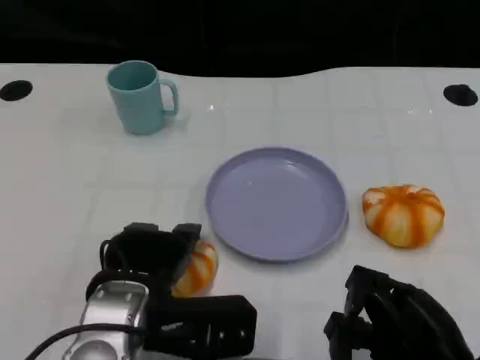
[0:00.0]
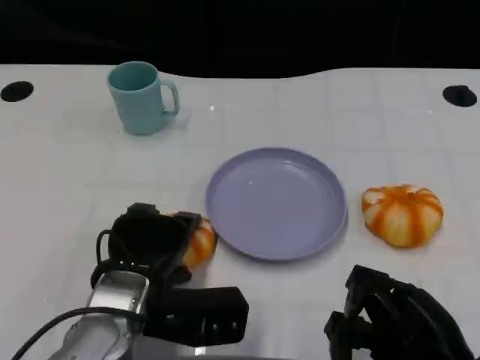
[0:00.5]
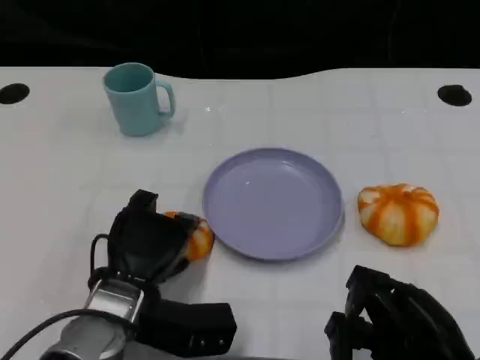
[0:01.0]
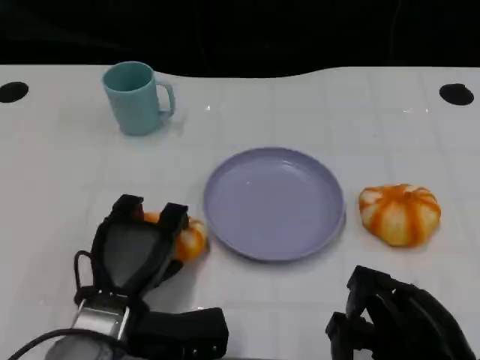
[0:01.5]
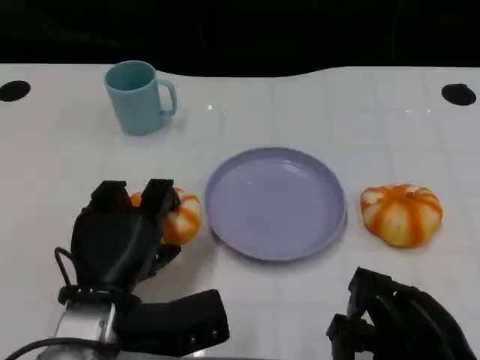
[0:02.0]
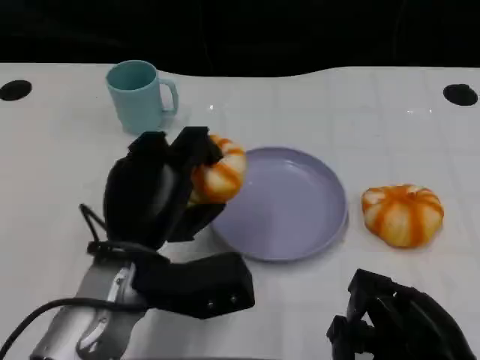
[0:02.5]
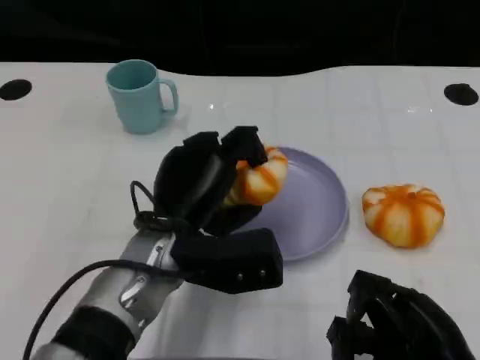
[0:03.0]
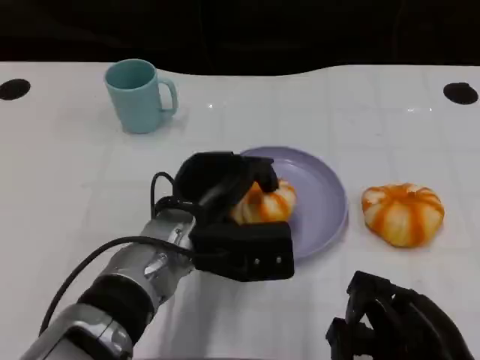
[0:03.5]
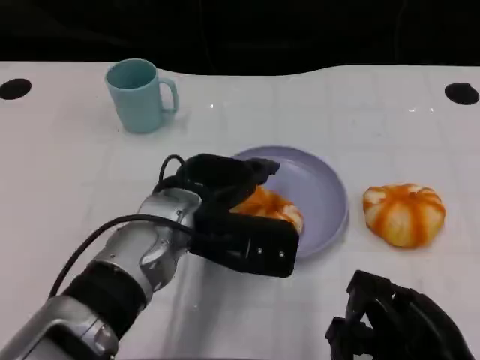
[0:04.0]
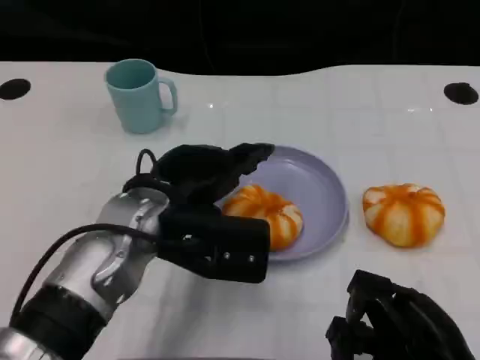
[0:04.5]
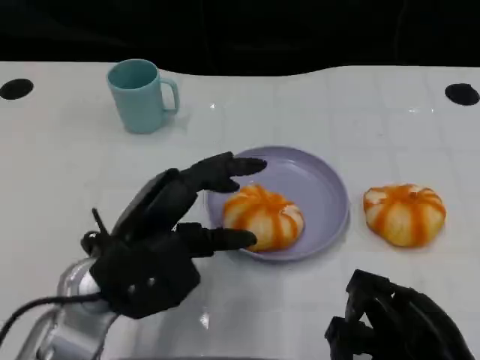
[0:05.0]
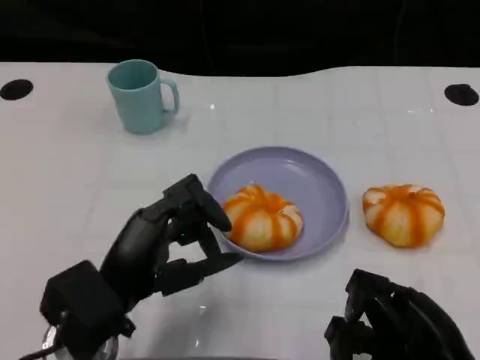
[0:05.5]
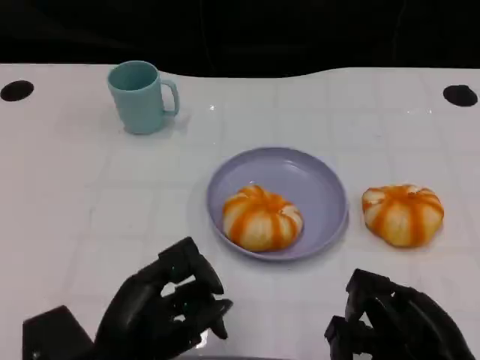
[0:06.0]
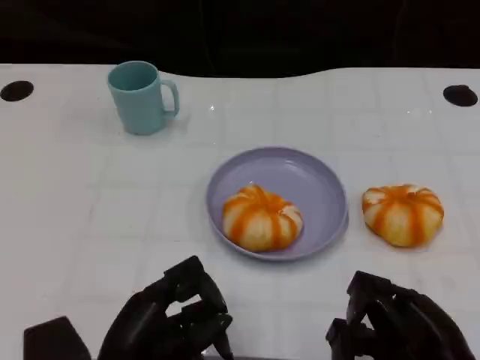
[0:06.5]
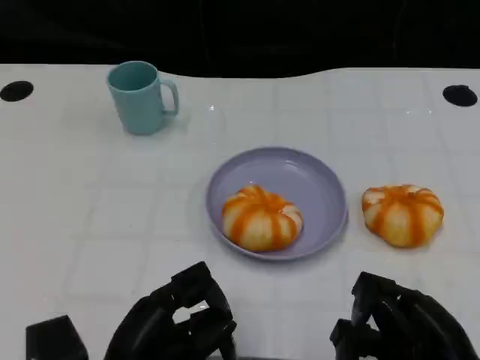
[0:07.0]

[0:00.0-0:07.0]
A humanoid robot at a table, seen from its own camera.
Task of the whole recording: Grasp the bread from the table and place it into the plate.
0:02.0 to 0:03.5: The left hand heads to the right and forward, covering roughly 10 cm.
0:03.5 to 0:05.0: The left hand heads to the left and backward, covering approximately 10 cm.
0:05.0 to 0:07.0: The left hand shifts approximately 10 cm backward and downward.

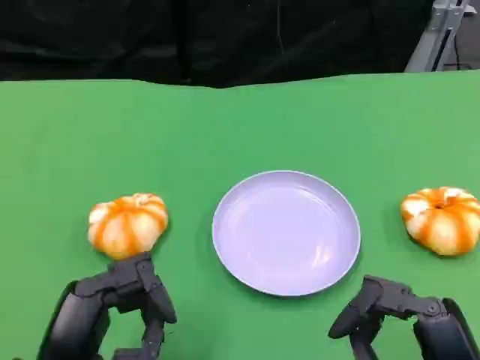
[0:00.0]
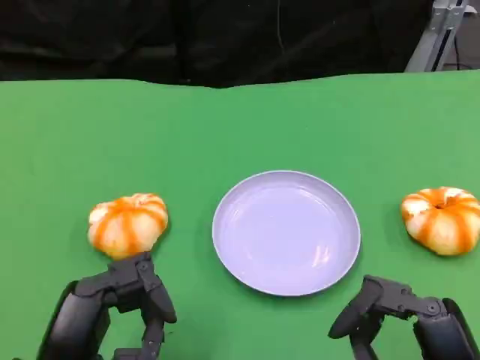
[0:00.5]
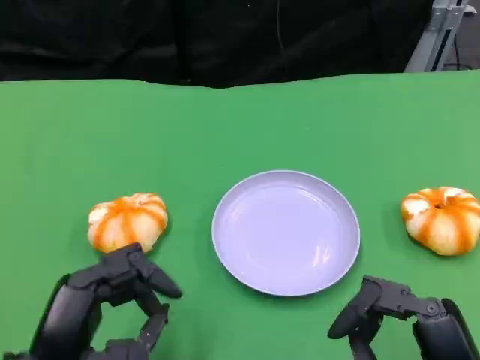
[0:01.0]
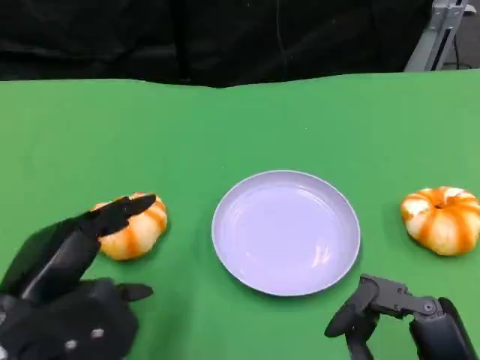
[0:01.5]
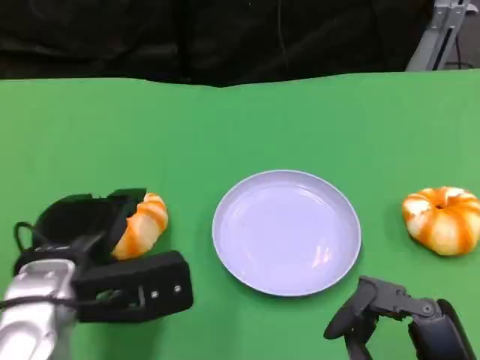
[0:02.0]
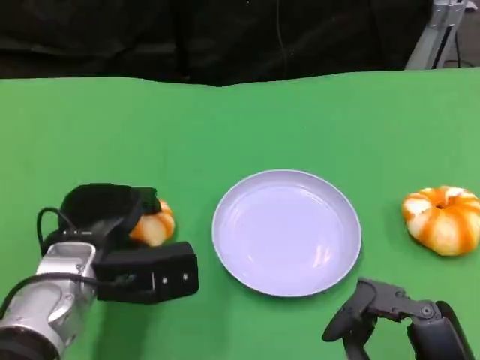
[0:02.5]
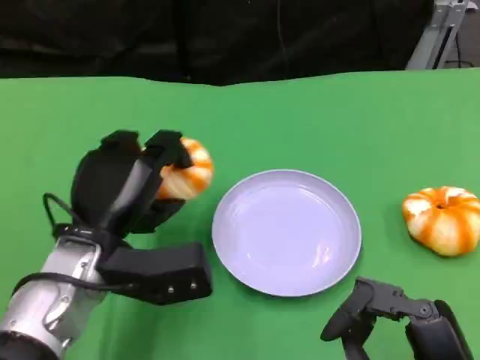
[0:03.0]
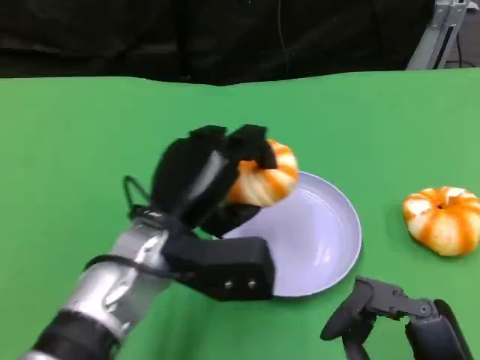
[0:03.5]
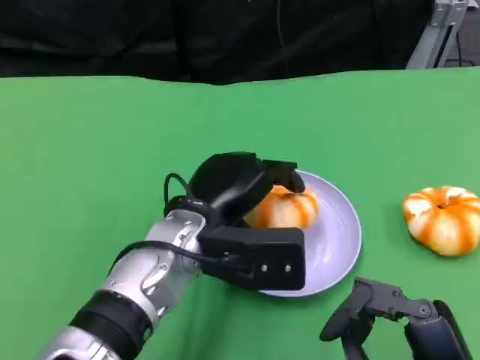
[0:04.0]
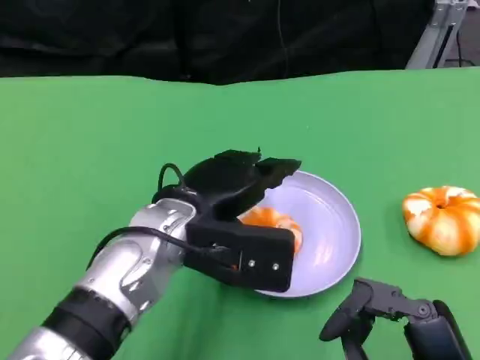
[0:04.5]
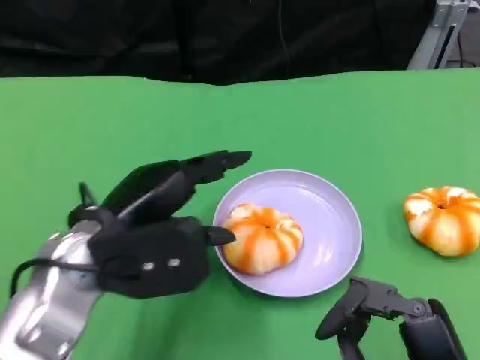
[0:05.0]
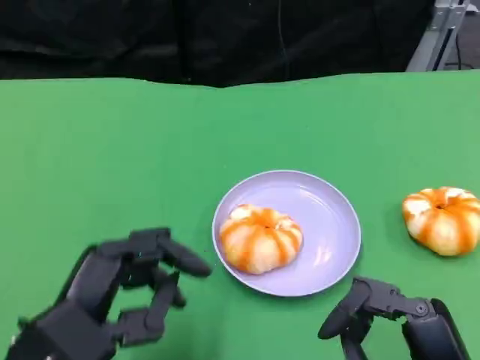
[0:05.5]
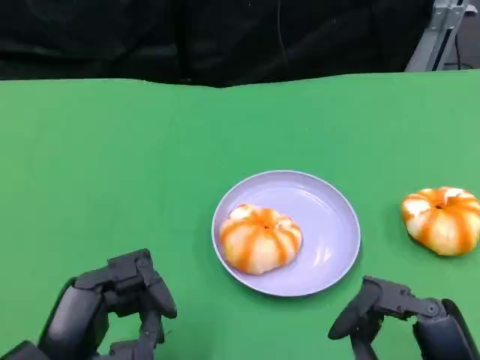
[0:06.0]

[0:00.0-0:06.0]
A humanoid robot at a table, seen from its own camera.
Task of the whole recording: Grasp the bread from the table and place it into the plate.
0:00.0 to 0:02.0: The left hand travels forward by roughly 10 cm.
0:02.0 to 0:04.0: The left hand goes roughly 10 cm to the right.
0:04.0 to 0:06.0: The left hand heads backward and to the left, covering roughly 20 cm.

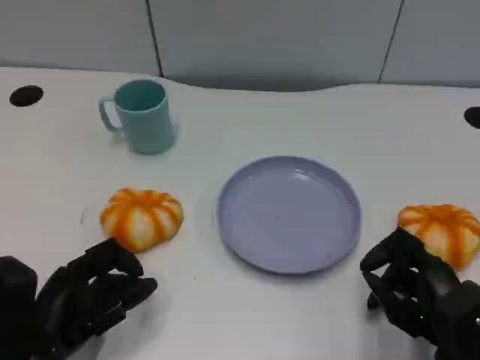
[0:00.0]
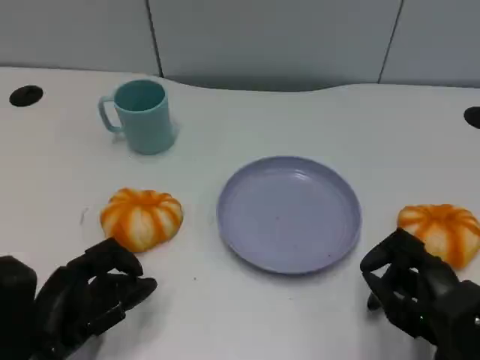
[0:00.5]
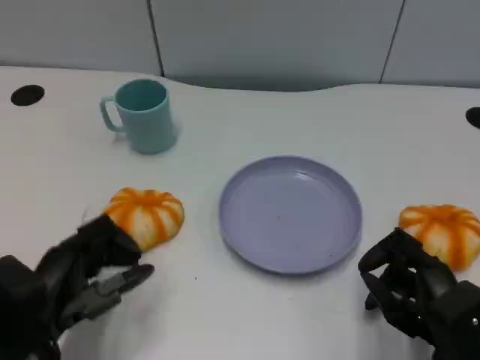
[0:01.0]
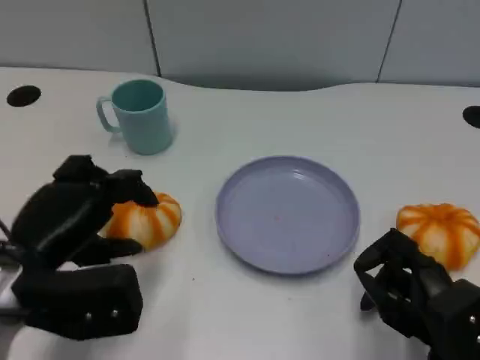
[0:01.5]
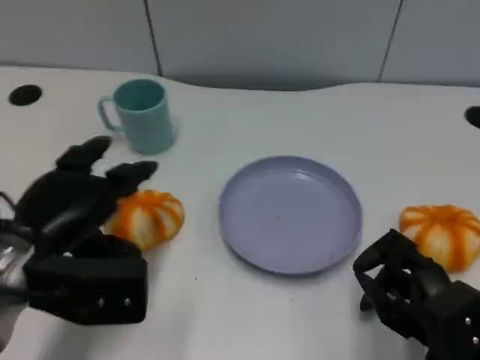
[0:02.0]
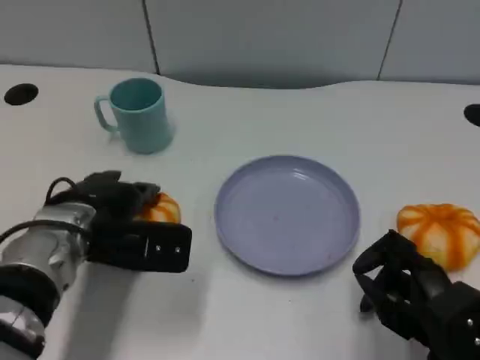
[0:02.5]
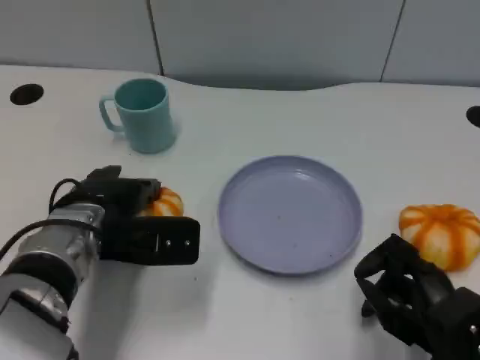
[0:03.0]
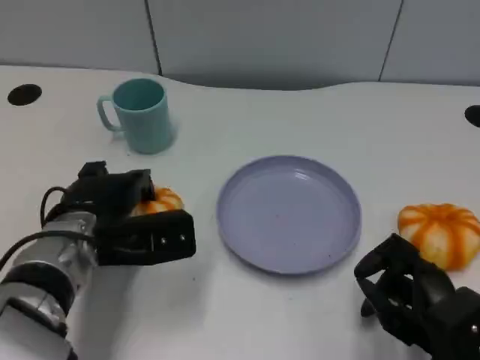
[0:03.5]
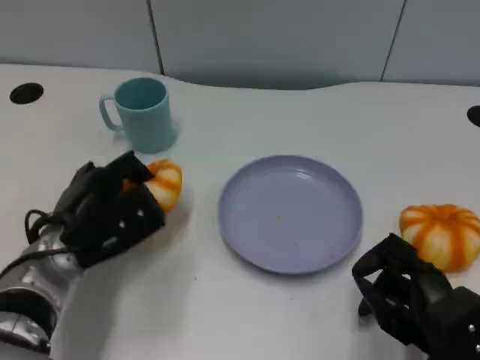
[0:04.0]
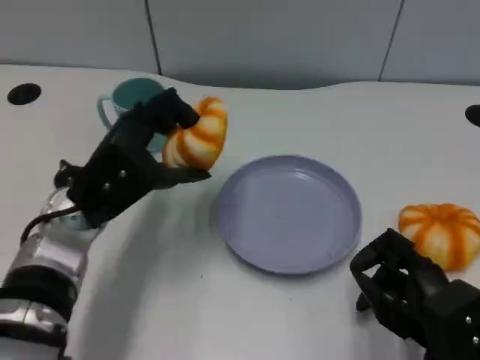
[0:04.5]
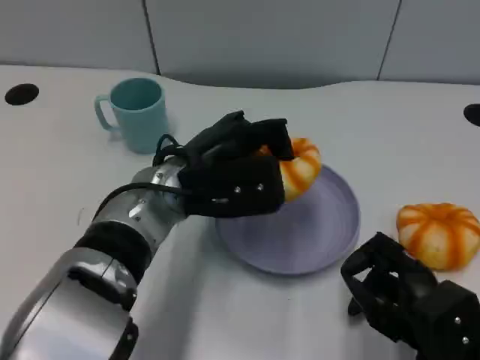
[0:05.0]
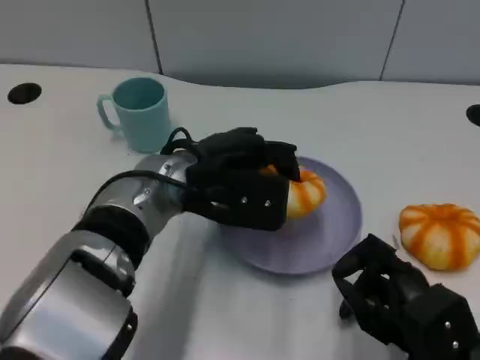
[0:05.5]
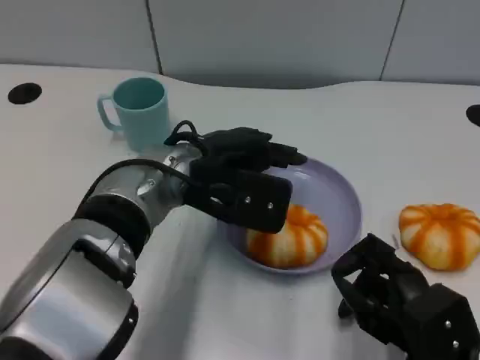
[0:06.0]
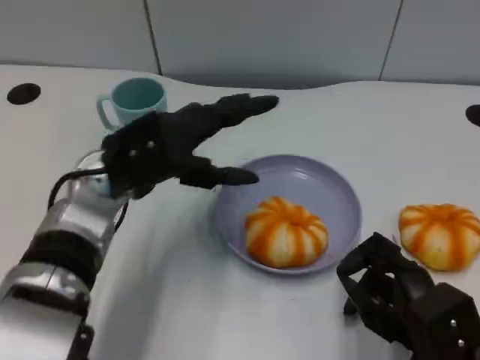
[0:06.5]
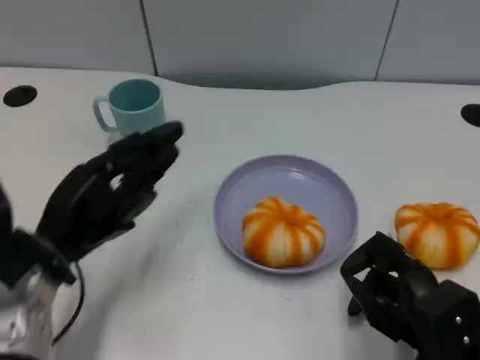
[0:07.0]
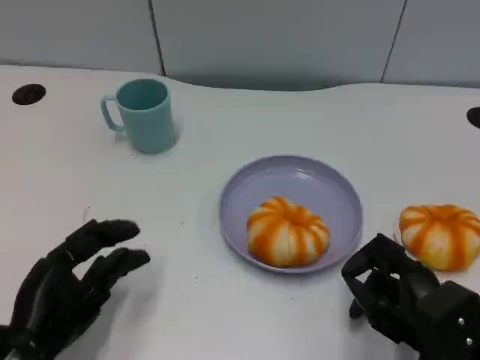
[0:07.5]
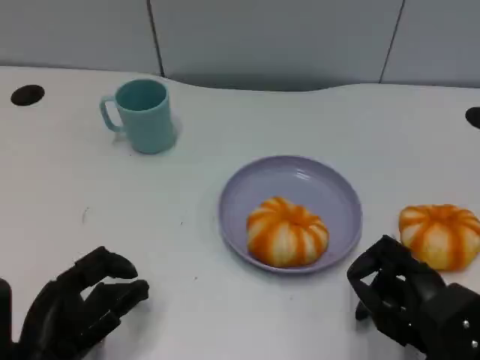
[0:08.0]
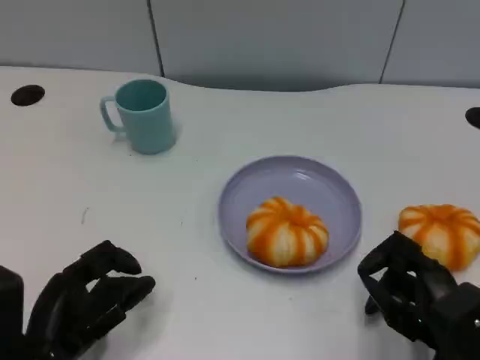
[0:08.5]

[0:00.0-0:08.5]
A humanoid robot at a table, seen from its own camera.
Task of the whole recording: Grasp the bread from the table and place it into the plate.
0:00.0 to 0:02.0: The left hand travels upward and forward by some 10 cm.
0:02.0 to 0:04.0: The left hand heads downward, covering roughly 5 cm.
0:04.0 to 0:06.5: The left hand is displaced upward by approximately 5 cm.
0:06.5 to 0:08.5: The left hand moves backward, downward and to the left, roughly 20 cm.

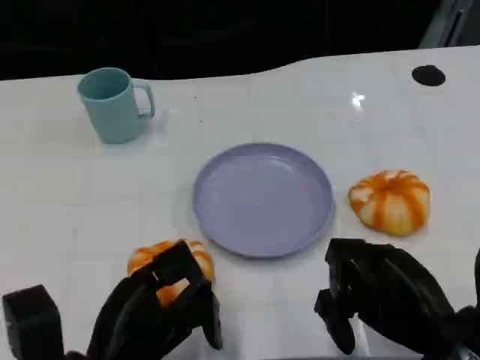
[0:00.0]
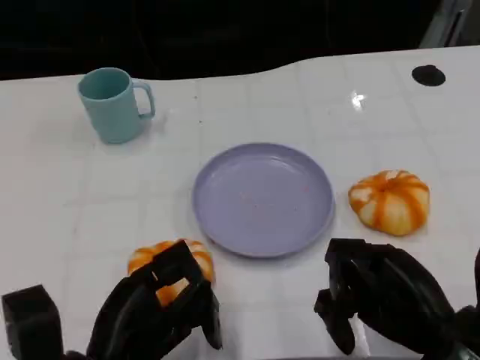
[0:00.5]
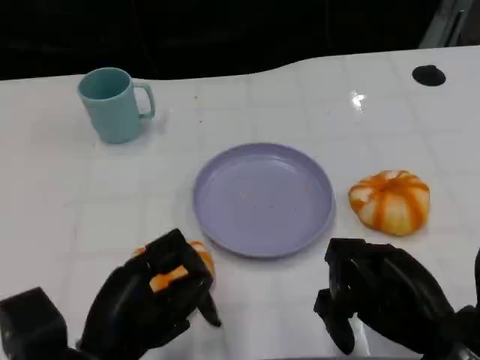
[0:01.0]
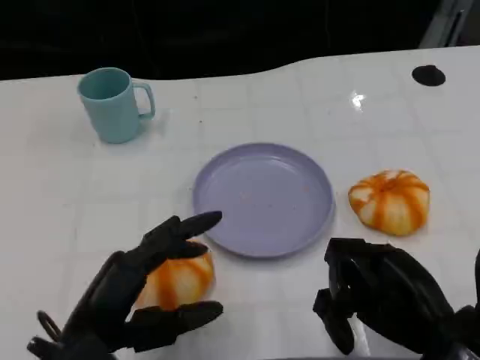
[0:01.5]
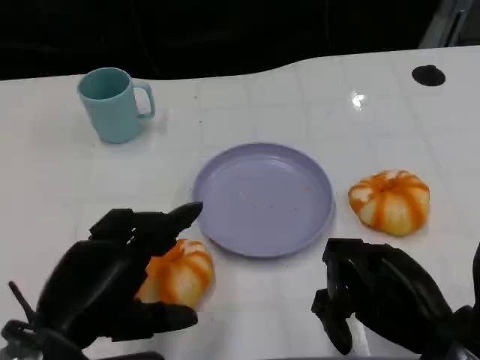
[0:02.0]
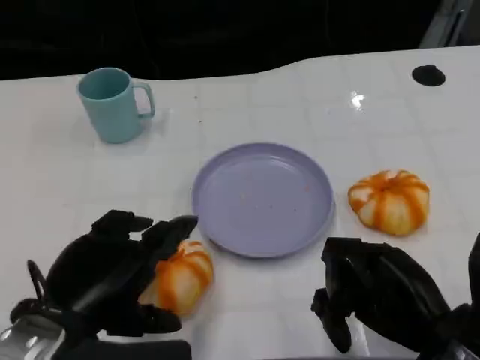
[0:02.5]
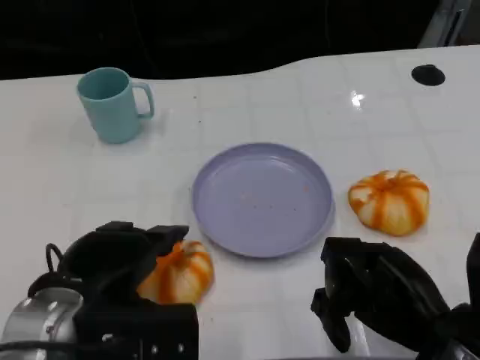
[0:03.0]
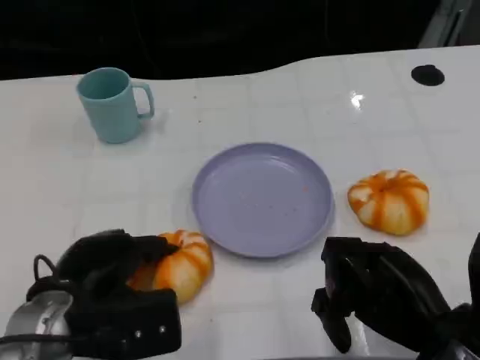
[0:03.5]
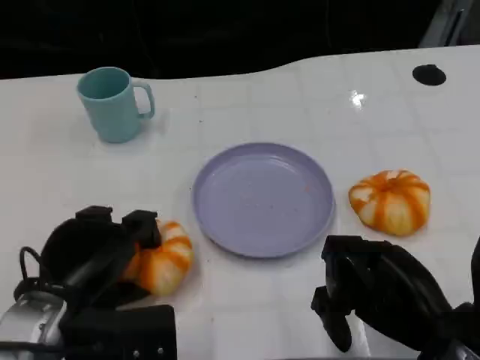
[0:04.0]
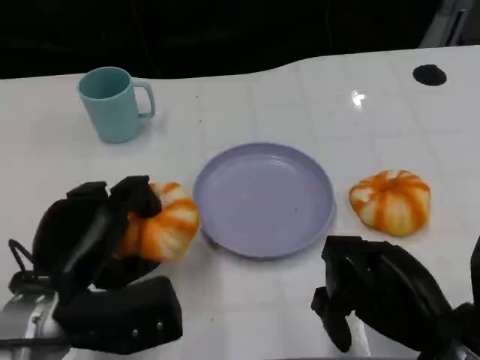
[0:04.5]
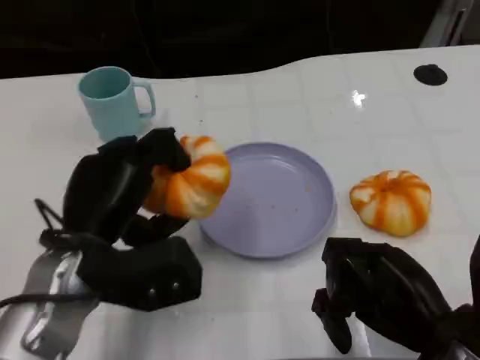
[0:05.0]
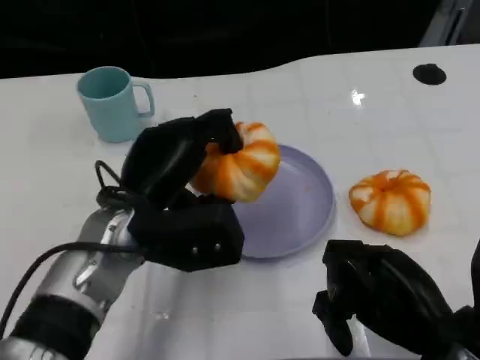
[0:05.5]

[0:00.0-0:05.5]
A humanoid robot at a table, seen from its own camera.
Task of the whole recording: Grasp the bread from the table and place it into the plate.
0:00.0 to 0:02.0: The left hand heads upward, covering approximately 5 cm.
0:02.0 to 0:03.5: The left hand goes roughly 10 cm forward and downward.
0:03.5 to 0:05.5: The left hand shifts some 10 cm to the right, forward and upward.
